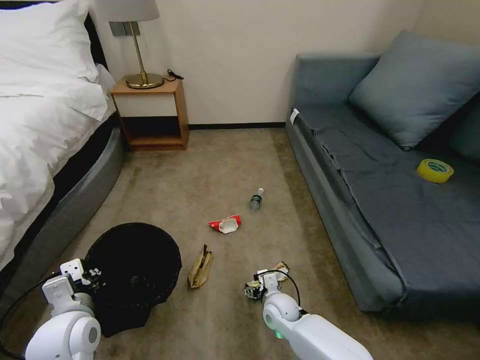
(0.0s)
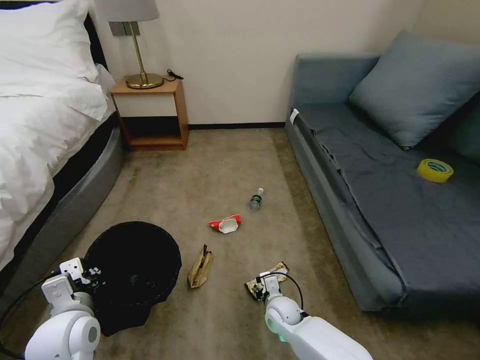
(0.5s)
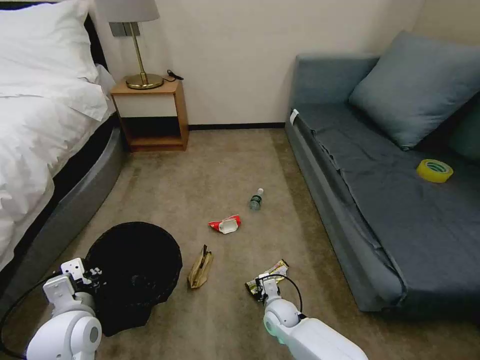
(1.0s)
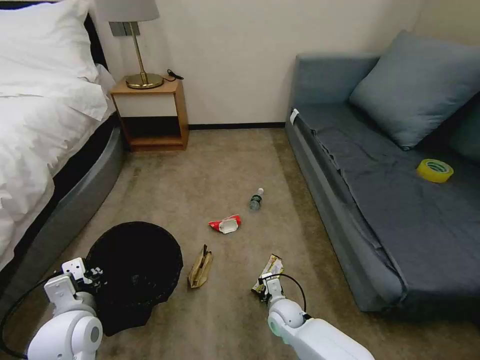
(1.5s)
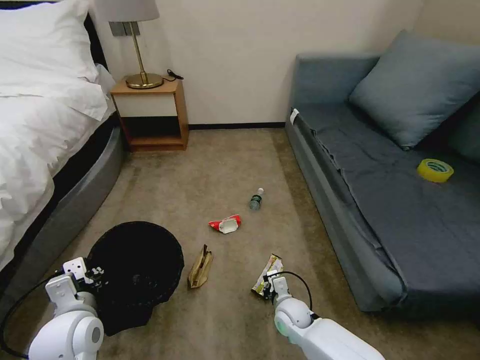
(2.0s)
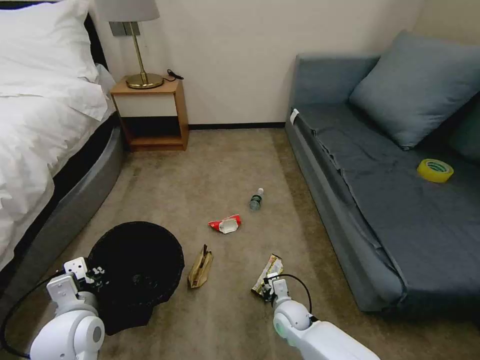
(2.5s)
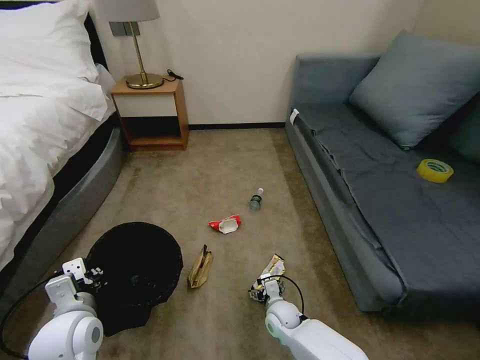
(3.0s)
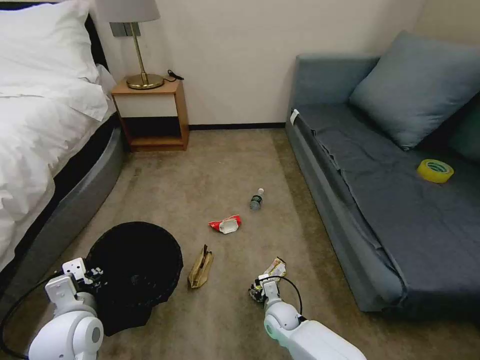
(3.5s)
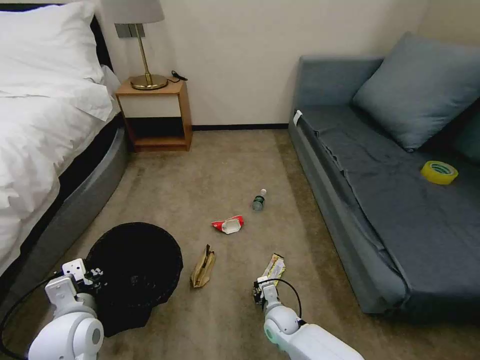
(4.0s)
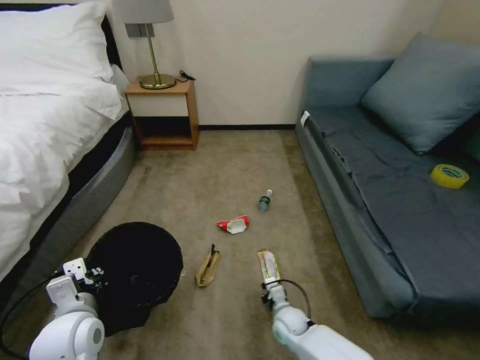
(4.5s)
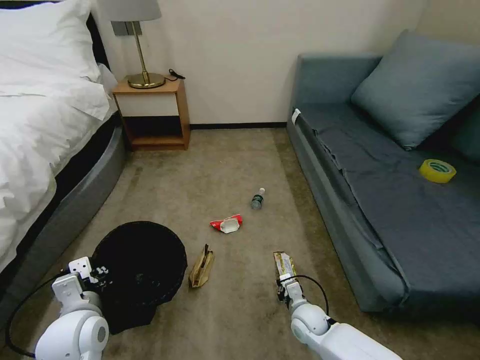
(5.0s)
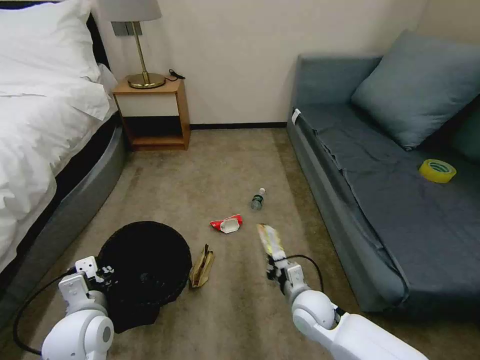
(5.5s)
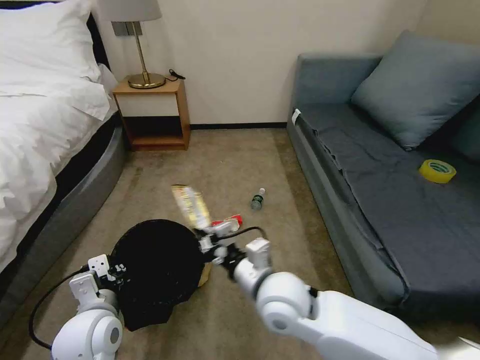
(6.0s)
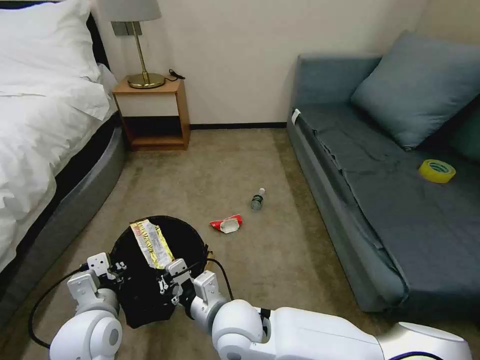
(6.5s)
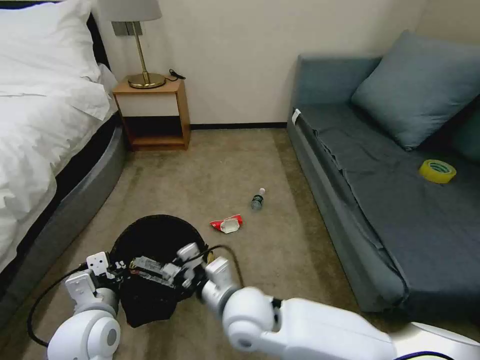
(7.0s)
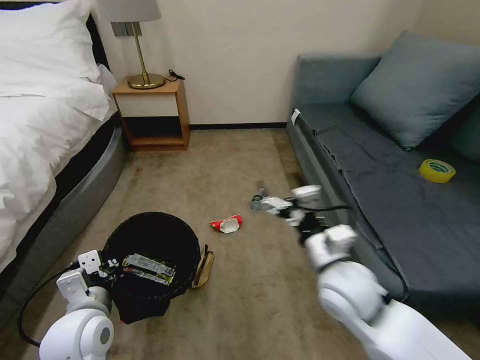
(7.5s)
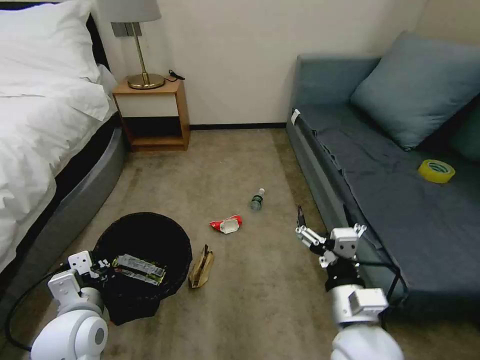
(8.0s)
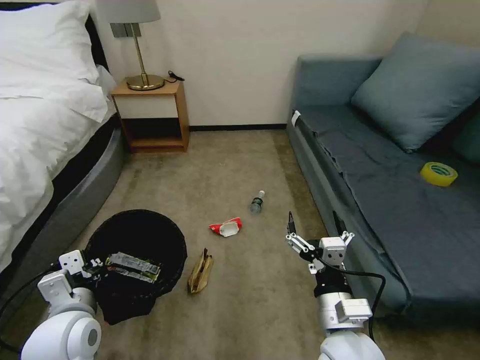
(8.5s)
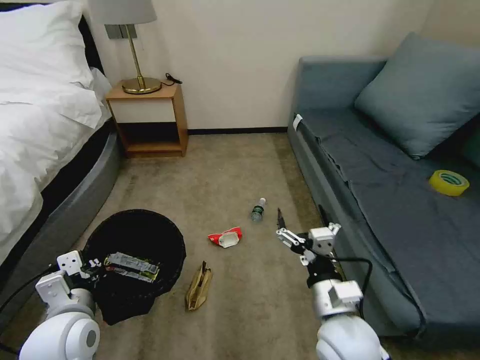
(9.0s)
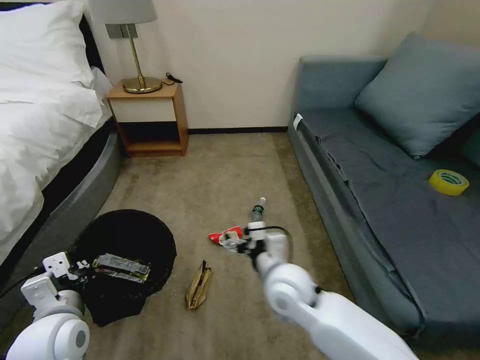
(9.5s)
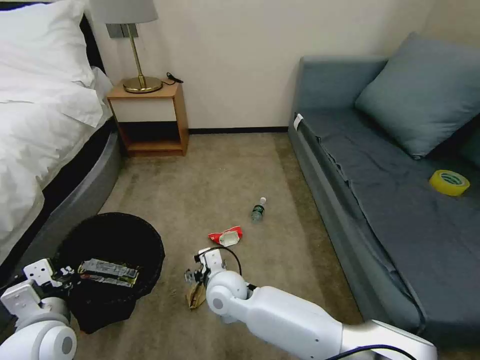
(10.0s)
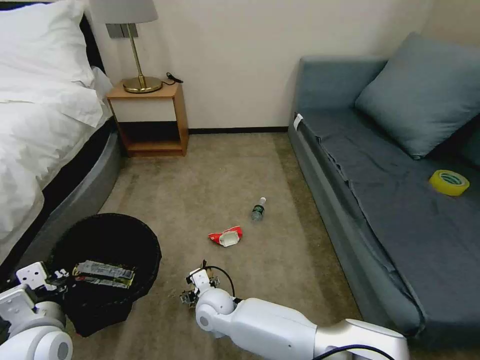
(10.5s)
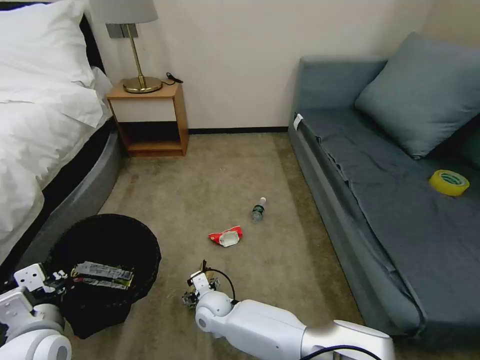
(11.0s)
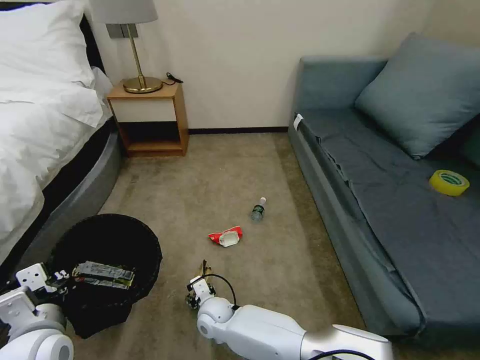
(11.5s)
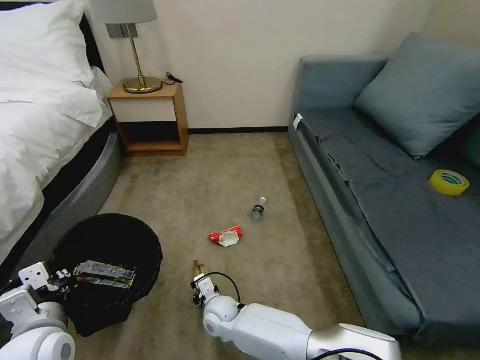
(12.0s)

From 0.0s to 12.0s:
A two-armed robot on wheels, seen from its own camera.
Task of the whole recording: Pick up the trash bin, then pick up the garbage on the floor and place it into the trash bin.
From 0.0s to 2.0s: The right gripper closes its fingers.
From 2.0s to 4.0s: The right gripper opens up.
From 4.0s to 6.0s: The right gripper travels upward by approximately 30 cm, and closes.
From 6.0s to 8.0s: The right gripper travels to the right and backward by roughly 15 cm, and opens up.
From 8.0s to 10.0s: The right gripper is displaced to the left, forward and downward by some 30 cm.
From 10.0s to 12.0s: The right gripper goes roughly 15 cm downward, and closes.

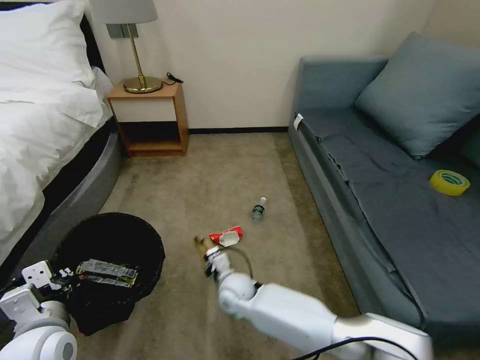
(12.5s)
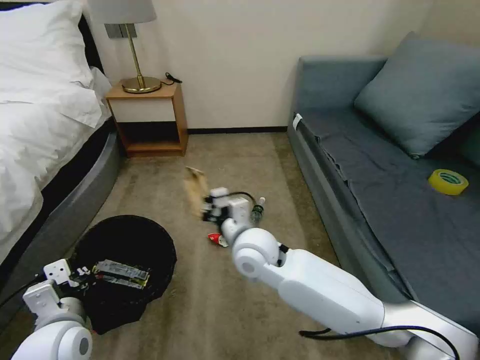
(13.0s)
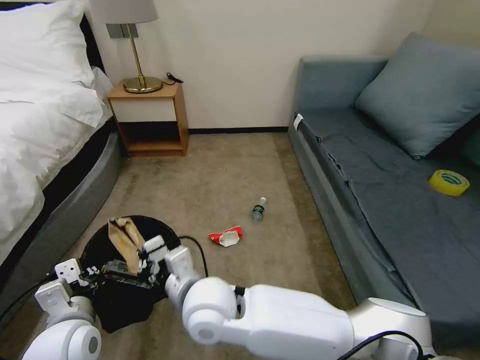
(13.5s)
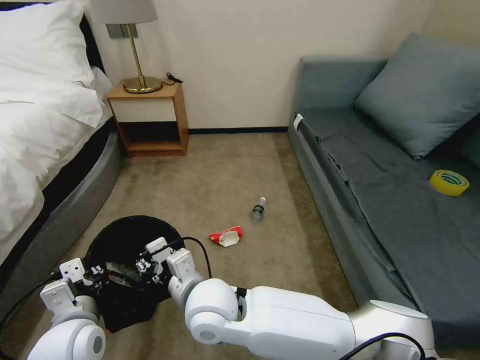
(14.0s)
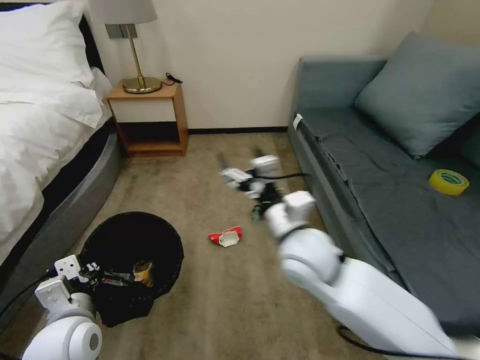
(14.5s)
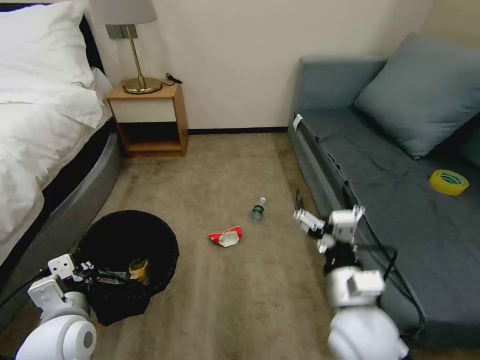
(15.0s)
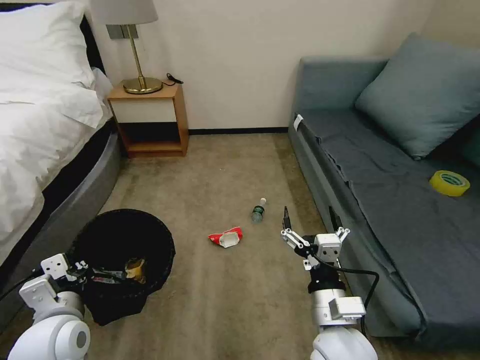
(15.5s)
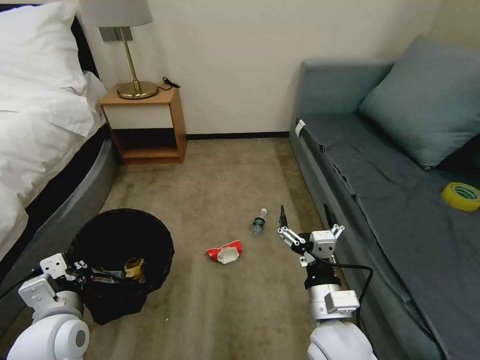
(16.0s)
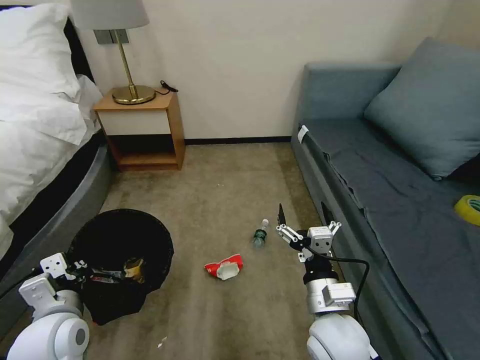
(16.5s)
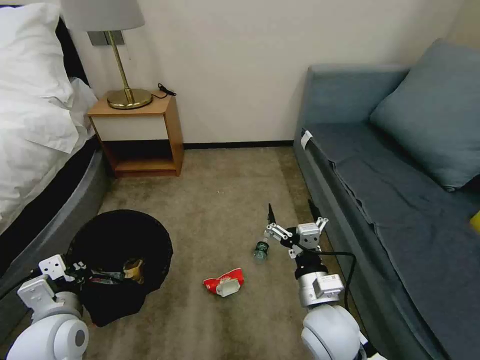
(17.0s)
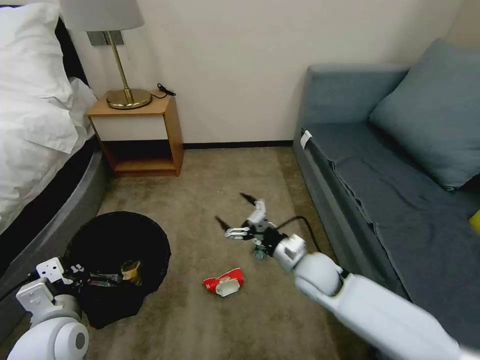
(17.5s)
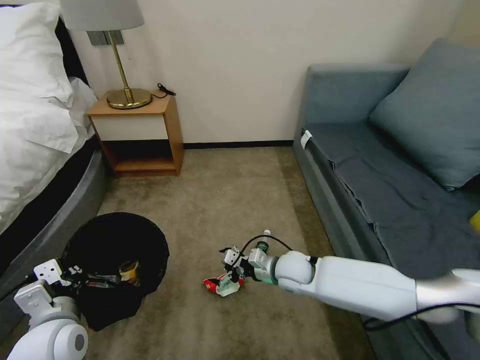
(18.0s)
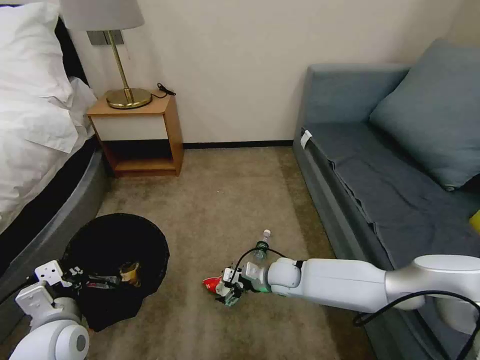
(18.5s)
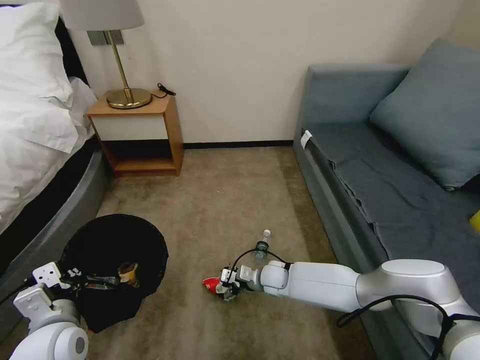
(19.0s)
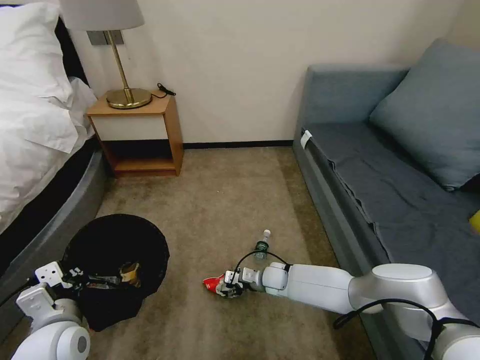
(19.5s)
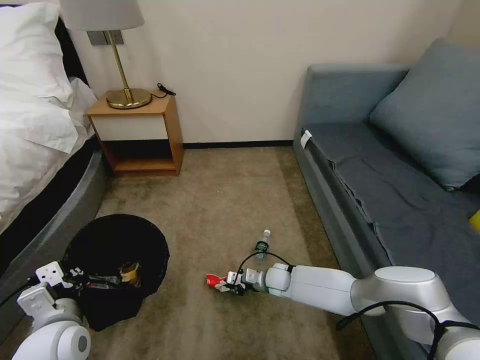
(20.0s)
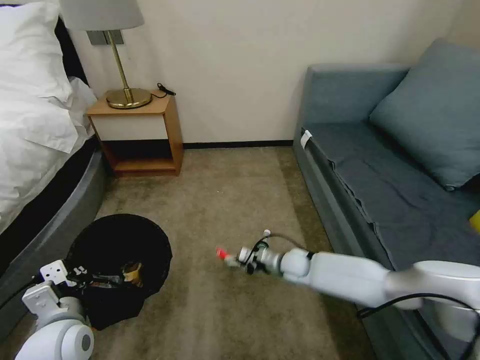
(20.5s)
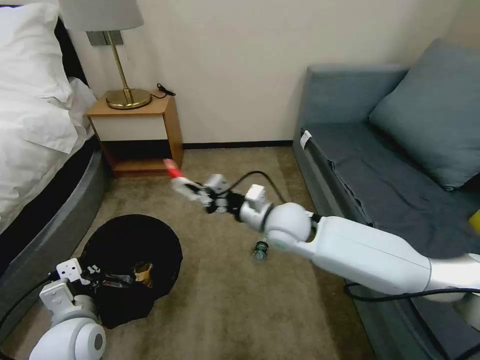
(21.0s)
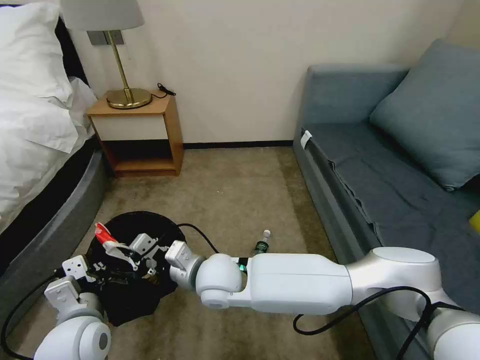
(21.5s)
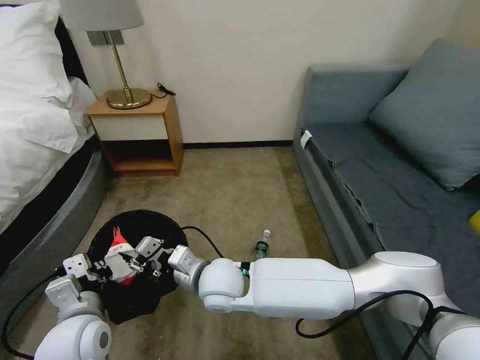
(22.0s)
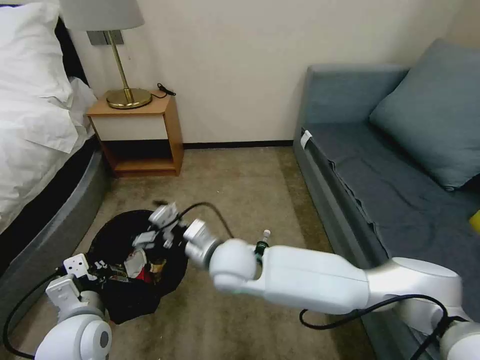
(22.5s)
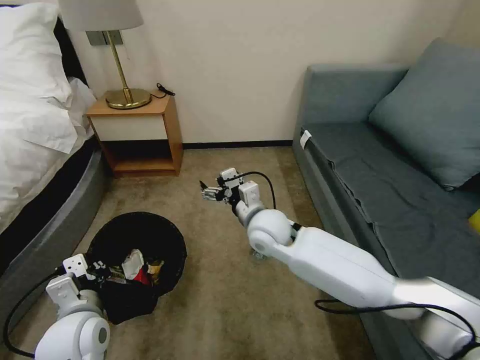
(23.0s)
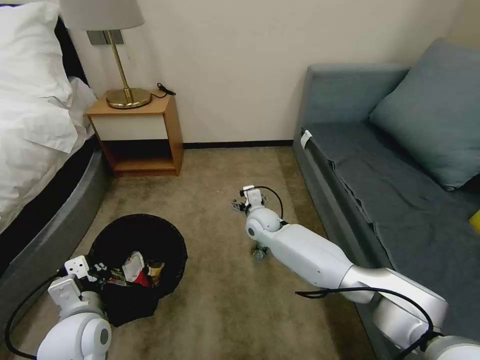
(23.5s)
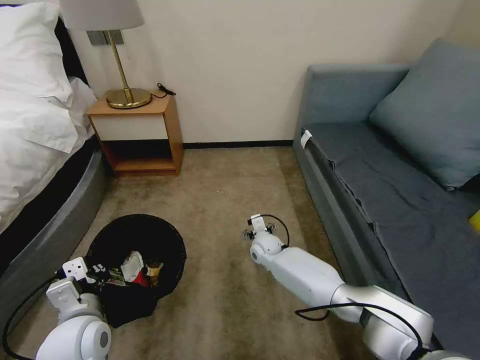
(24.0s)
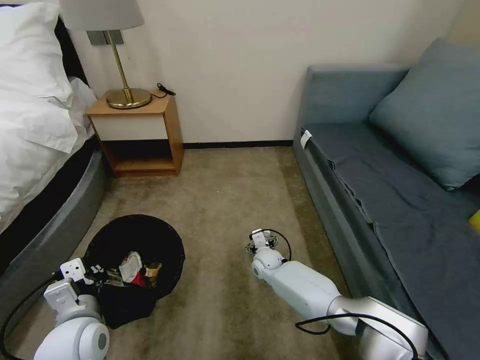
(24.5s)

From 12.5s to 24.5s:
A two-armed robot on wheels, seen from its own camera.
Task of the whole recording: Pick up the trash bin, then pick up the garbage on the floor and place it into the trash bin.
From 12.5s to 14.5s: The right gripper heads upward and to the right, covering some 30 cm, and opens its fingers.
From 14.5s to 16.5s: The right gripper shifts approximately 15 cm backward and downward.
From 16.5s to 18.5s: The right gripper goes some 25 cm forward and downward.
From 18.5s to 20.5s: The right gripper goes approximately 5 cm to the right, reaches some 10 cm downward, then returns, and closes its fingers.
From 20.5s to 22.5s: The right gripper shifts roughly 30 cm upward, to the left and backward, and opens up.
From 22.5s to 24.5s: The right gripper moves downward, forward and to the right, about 30 cm.

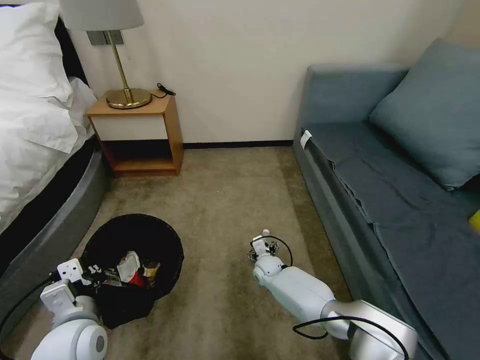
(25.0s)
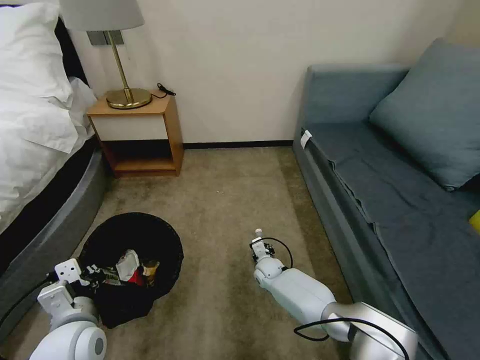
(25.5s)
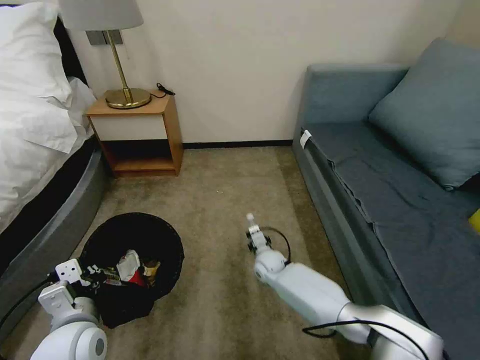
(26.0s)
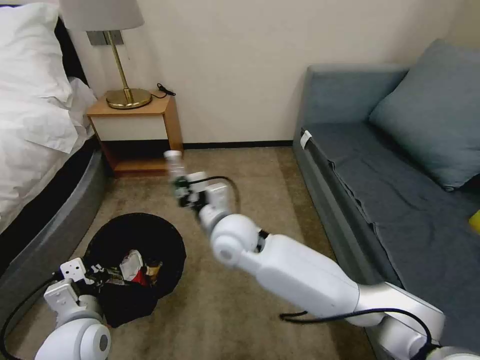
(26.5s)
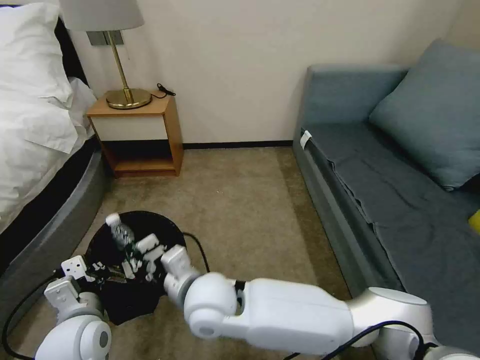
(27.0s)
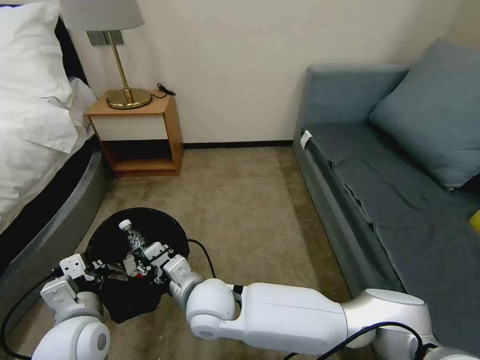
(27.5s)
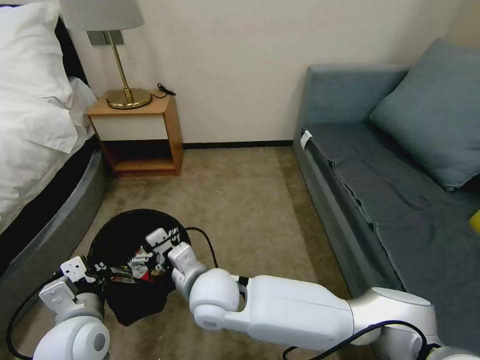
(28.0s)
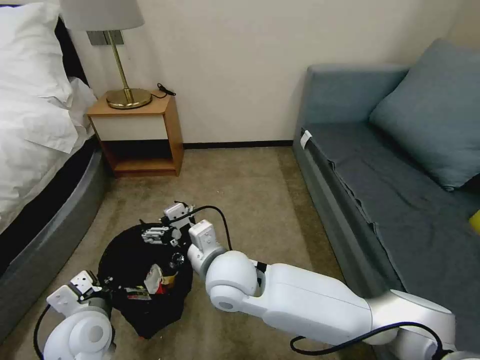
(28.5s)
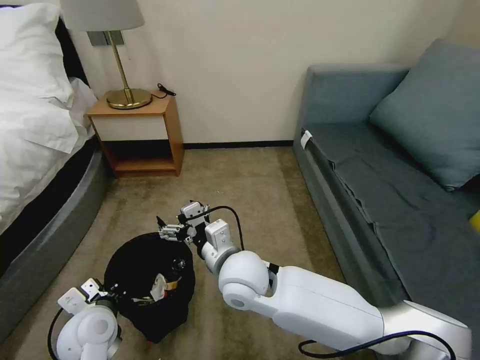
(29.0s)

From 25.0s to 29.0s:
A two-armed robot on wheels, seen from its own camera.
Task of the whole recording: Pick up the trash bin, then pick up the garbage on the floor and place it into the trash bin.
From 25.0s to 27.0s: The right gripper moves upward, backward and to the left, some 35 cm, and closes up.
From 27.0s to 29.0s: The left gripper goes roughly 5 cm downward, while the right gripper heads to the right, covering about 5 cm, and opens its fingers.
